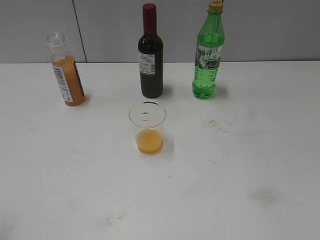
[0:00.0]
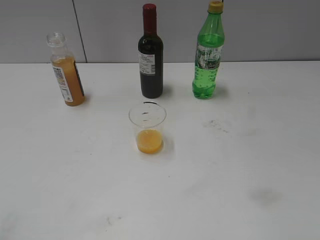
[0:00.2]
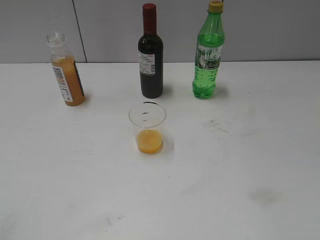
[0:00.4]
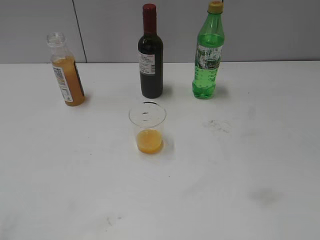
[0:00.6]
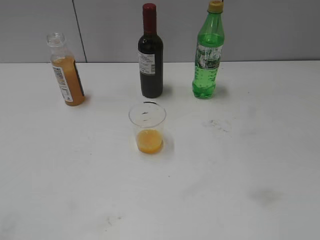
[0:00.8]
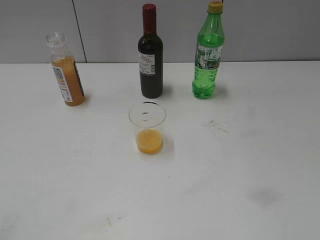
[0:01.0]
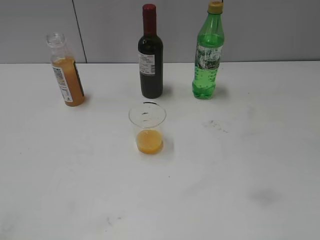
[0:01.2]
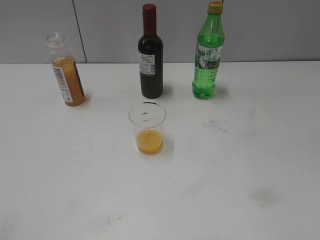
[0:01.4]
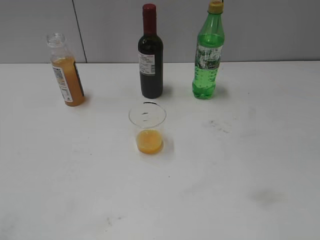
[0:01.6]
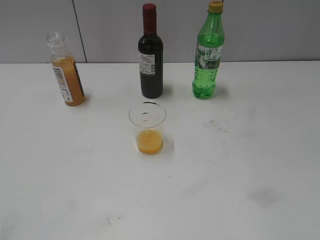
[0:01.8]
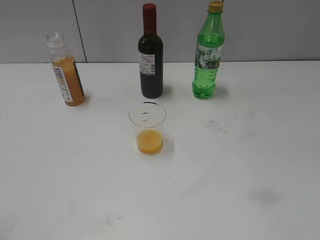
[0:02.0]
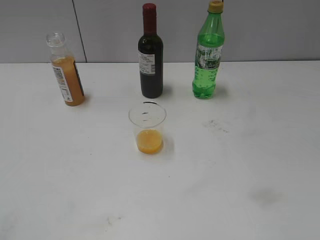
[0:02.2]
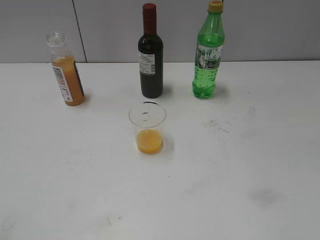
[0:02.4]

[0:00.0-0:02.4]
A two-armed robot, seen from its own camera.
0:01.2 to 0:02.4: Both grippers stay about where they are.
